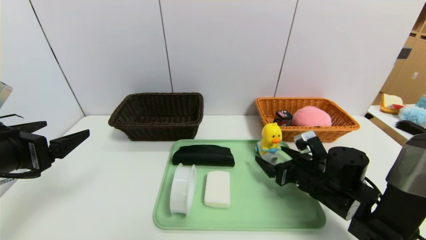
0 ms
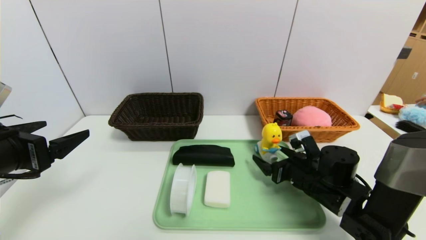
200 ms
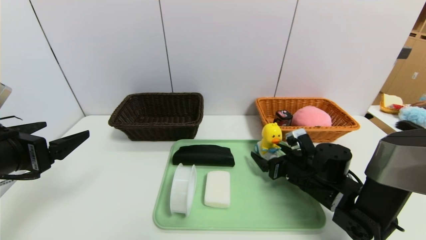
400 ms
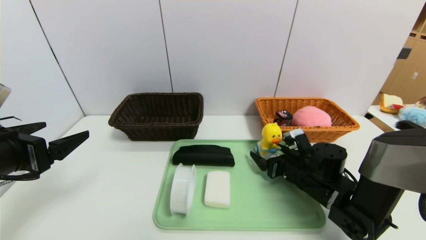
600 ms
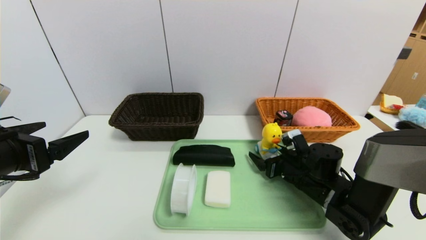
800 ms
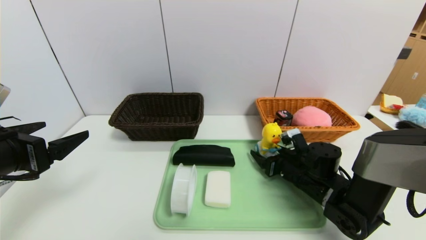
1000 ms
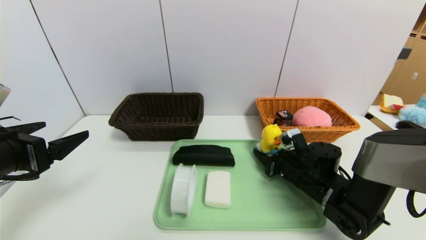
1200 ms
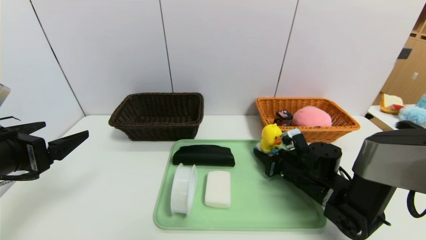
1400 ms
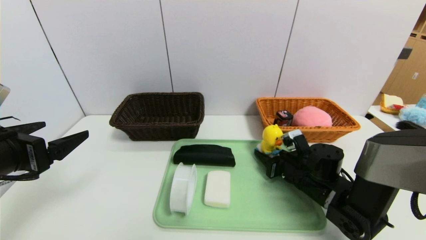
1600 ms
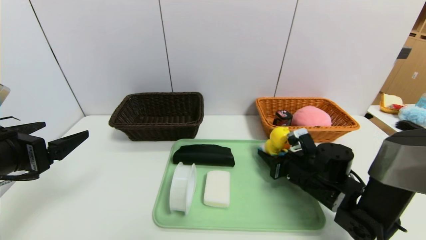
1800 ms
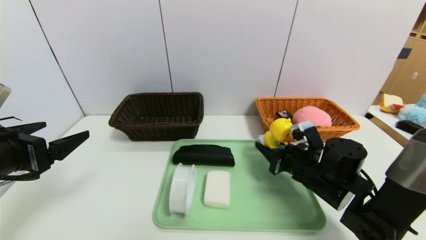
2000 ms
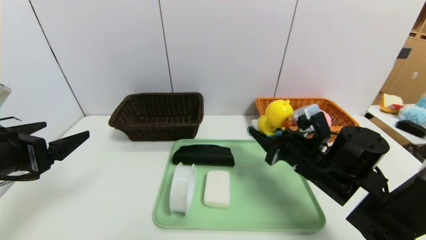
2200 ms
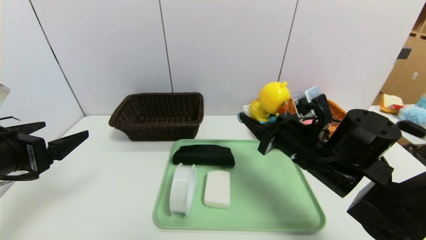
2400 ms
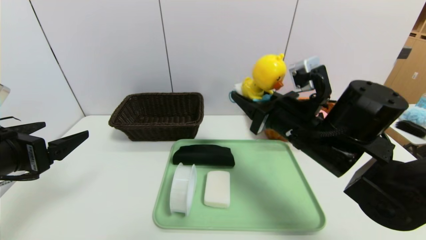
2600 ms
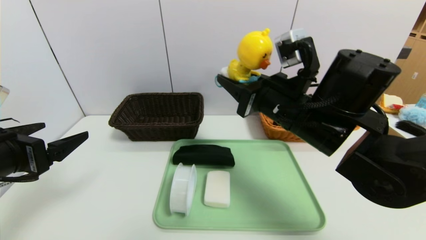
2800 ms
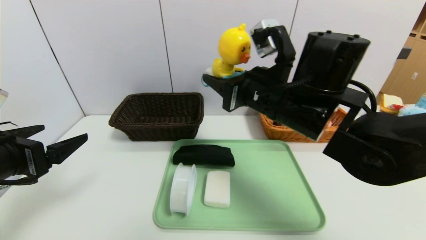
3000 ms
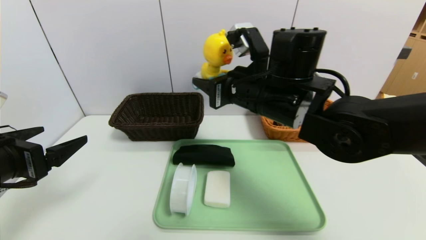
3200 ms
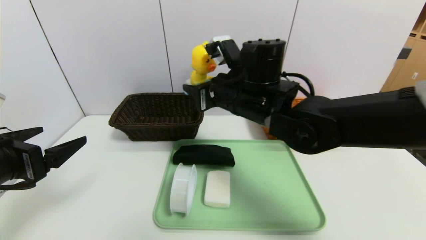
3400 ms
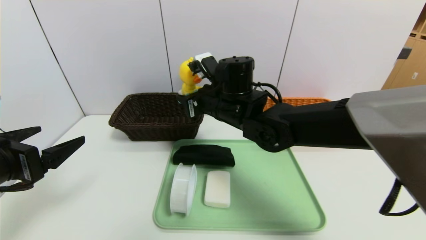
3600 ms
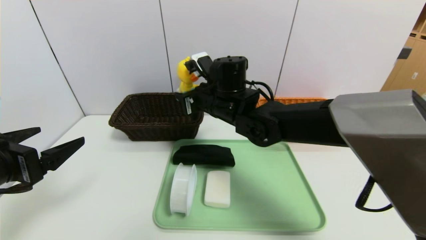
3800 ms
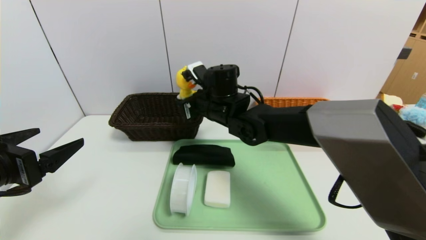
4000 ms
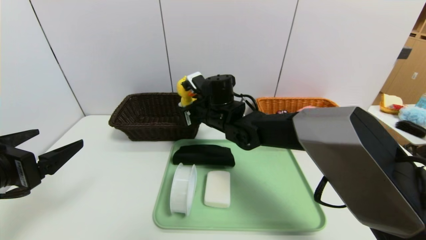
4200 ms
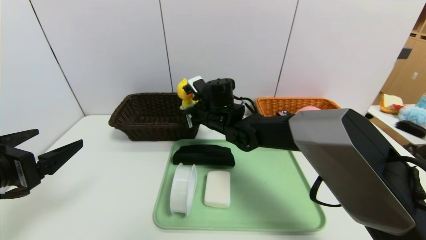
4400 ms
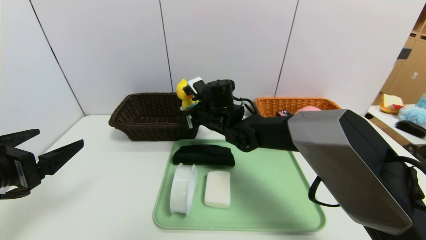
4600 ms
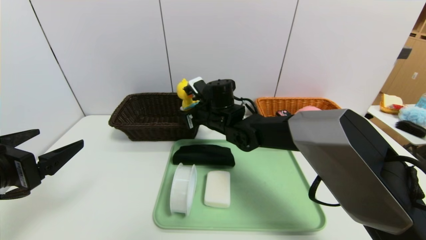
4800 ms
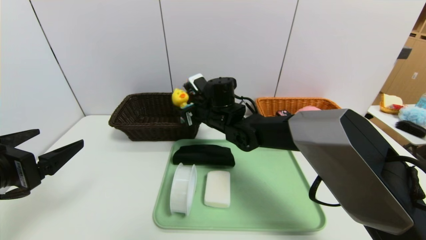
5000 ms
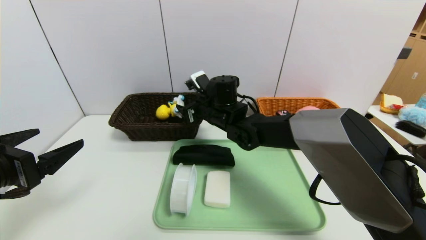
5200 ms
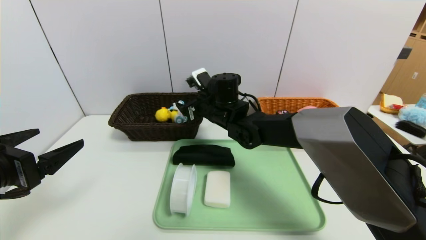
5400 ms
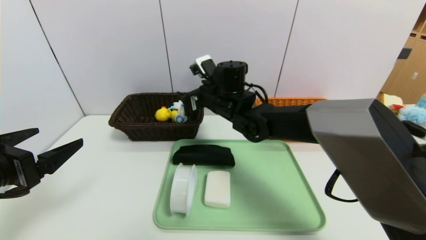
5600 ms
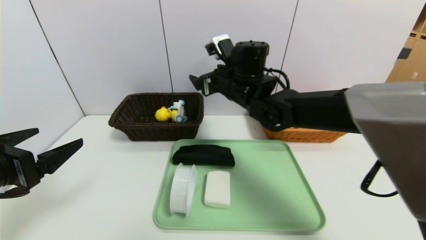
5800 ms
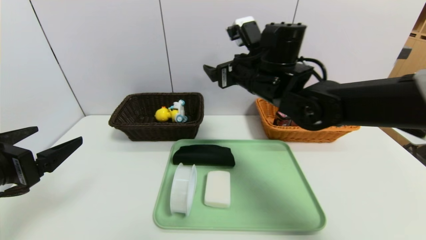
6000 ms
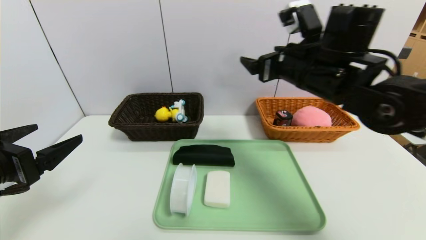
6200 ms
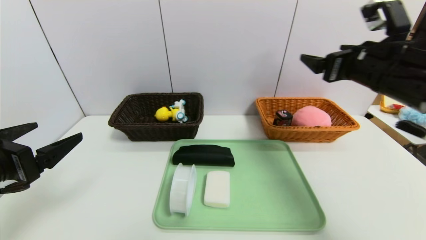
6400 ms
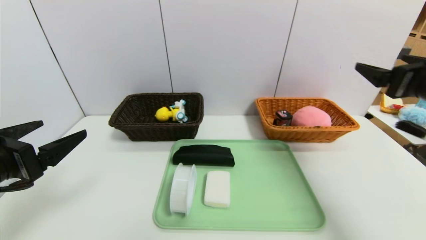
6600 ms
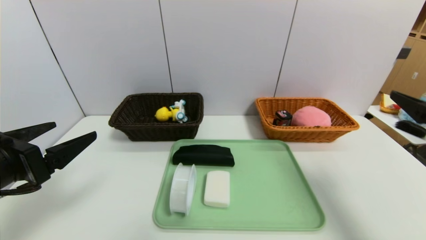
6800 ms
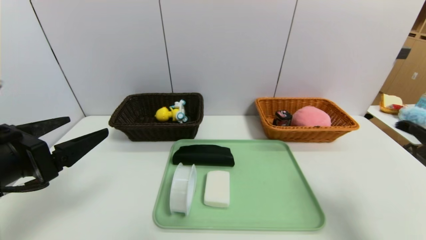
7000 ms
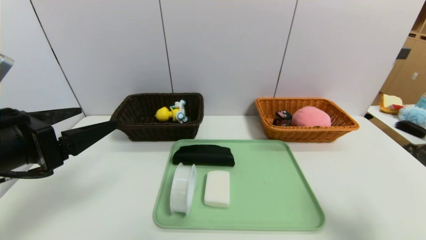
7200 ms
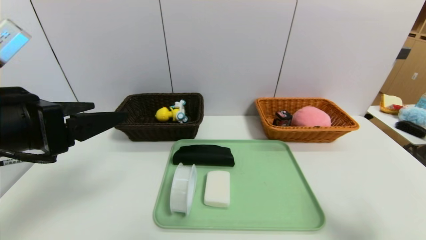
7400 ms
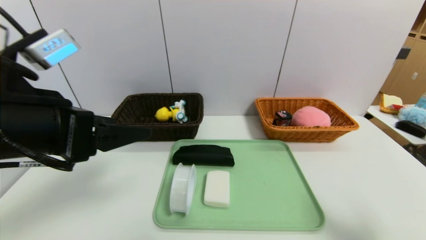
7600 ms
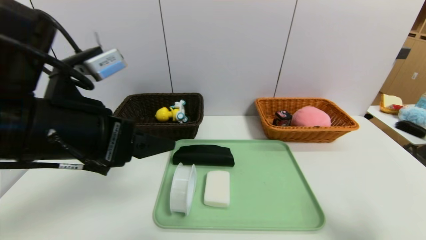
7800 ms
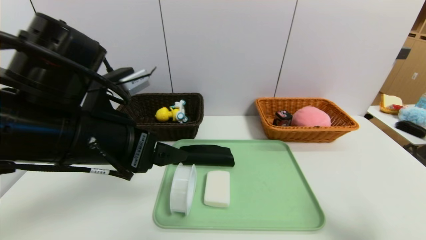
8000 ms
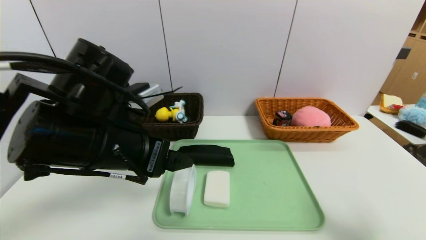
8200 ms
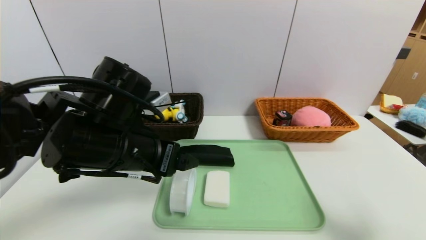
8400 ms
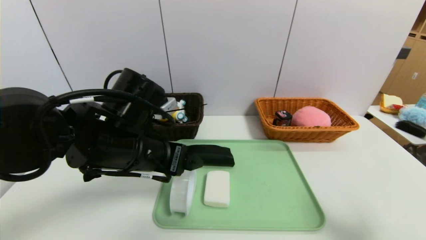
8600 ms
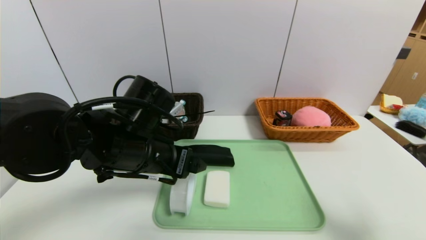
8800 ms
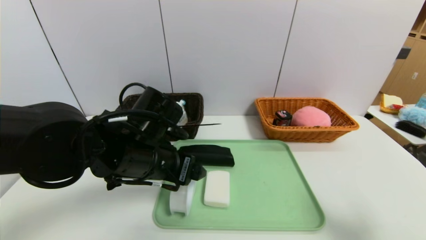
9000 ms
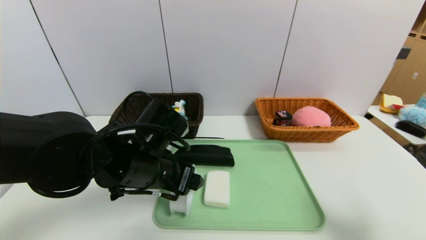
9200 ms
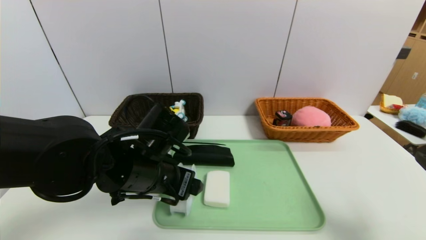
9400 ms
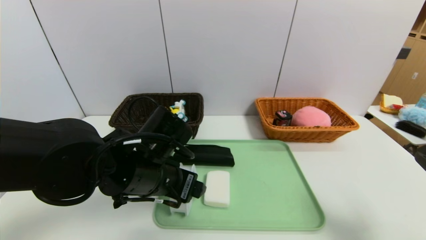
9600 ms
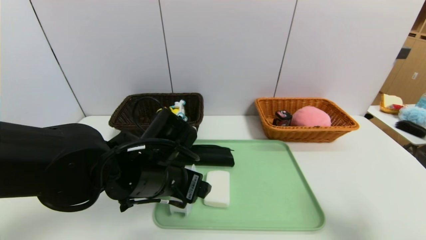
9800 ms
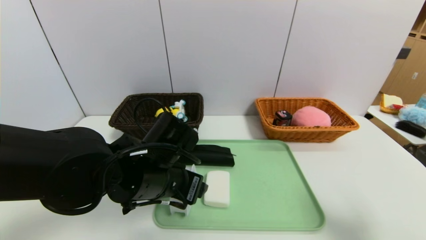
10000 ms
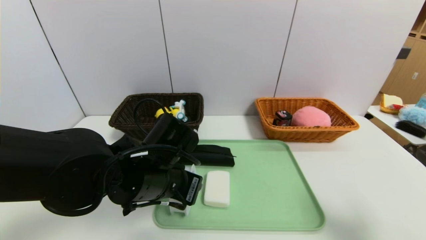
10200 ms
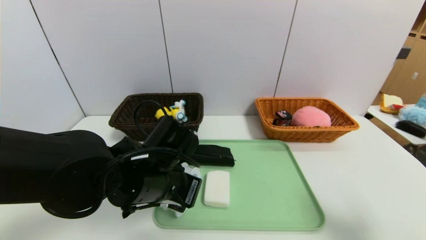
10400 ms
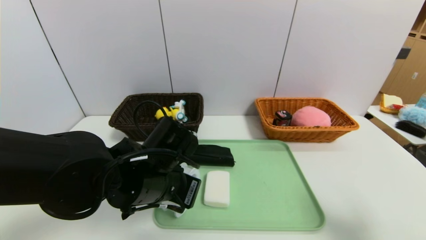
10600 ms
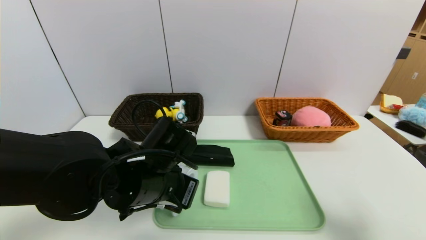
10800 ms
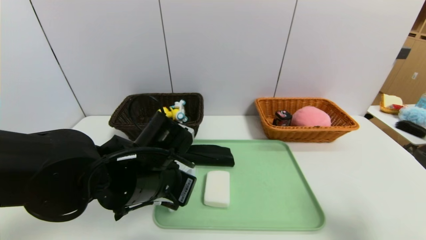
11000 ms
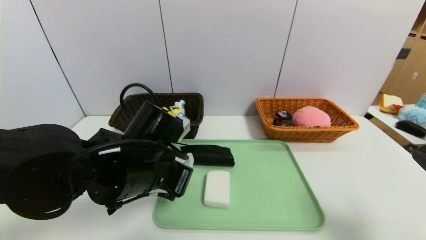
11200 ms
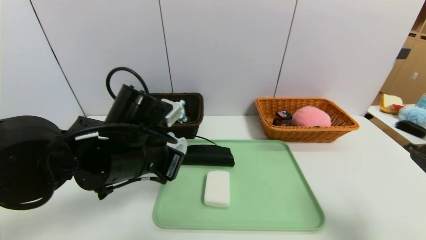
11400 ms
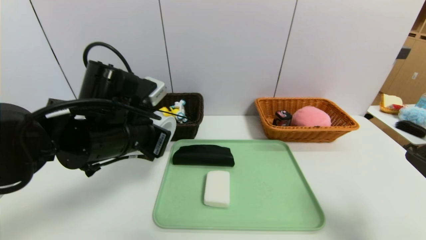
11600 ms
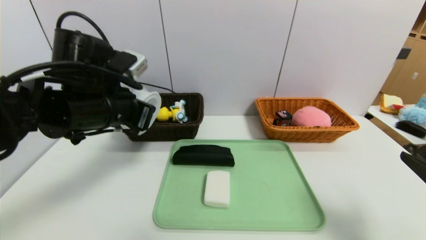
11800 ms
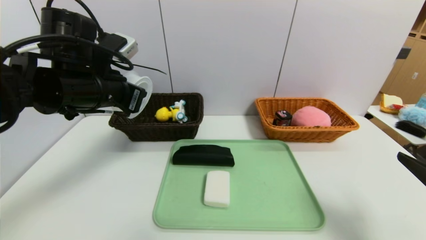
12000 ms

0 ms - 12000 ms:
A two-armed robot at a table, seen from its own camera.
Task of the whole recording: place the food in the right basket with the right gripper, and place the non food items in the left basket with the left gripper.
0 ms - 1600 ms: The right gripper closes up.
1600 ms - 3000 ms: The right gripper goes about 25 cm upward and to the left.
3000 ms - 4400 ms: The right gripper heads forward, downward and to the left, covering some 20 cm.
4400 ms - 6000 ms: The right gripper shifts about 15 cm upward, to the right and backward, and opens up.
6000 ms - 7600 ms: The left gripper is displaced to the right and upward by some 10 cm. The right gripper goes approximately 35 cm backward and to the right.
7600 ms - 9000 ms: The left gripper moves downward, to the right and forward, about 15 cm.
9000 ms - 10400 ms: The left gripper closes.
10400 ms - 12000 ms: The left gripper moves upward, to the left and forward, about 20 cm.

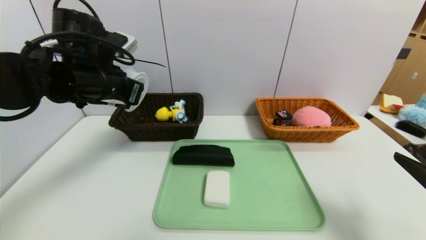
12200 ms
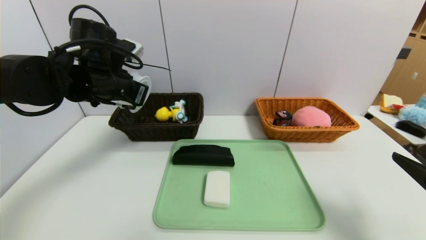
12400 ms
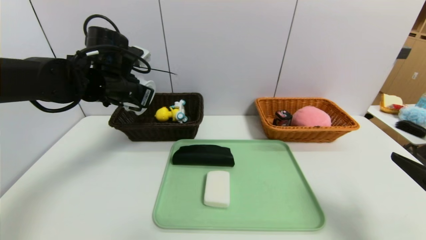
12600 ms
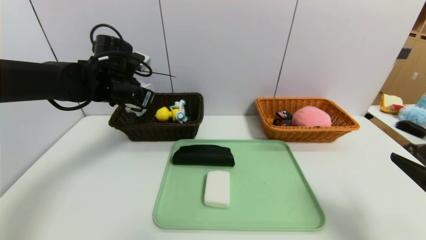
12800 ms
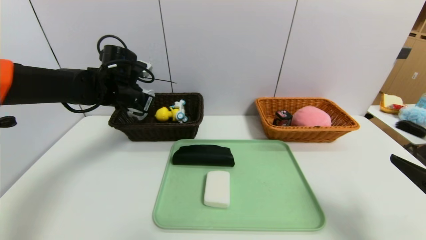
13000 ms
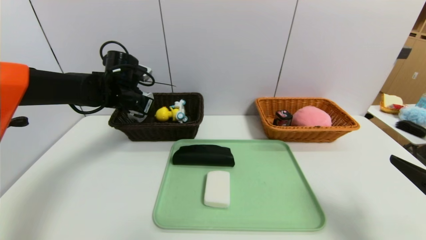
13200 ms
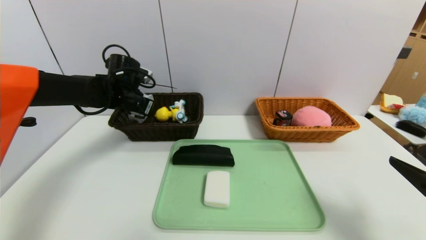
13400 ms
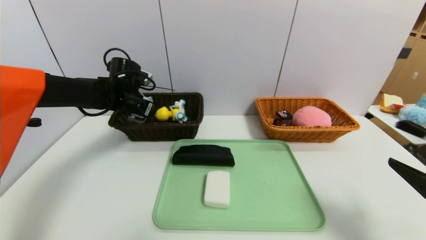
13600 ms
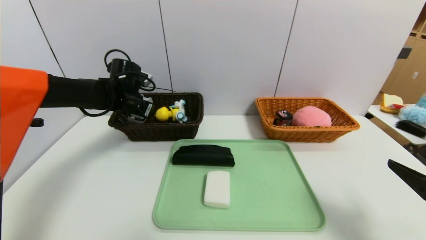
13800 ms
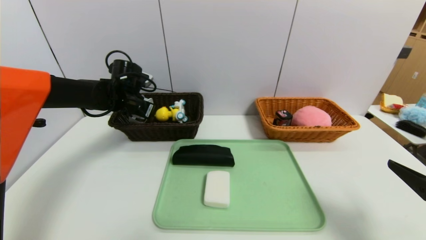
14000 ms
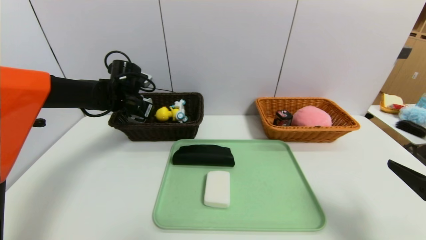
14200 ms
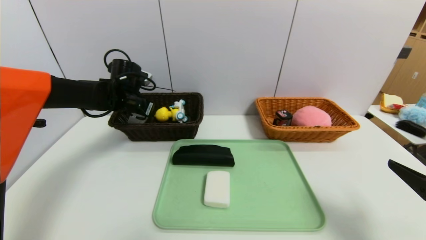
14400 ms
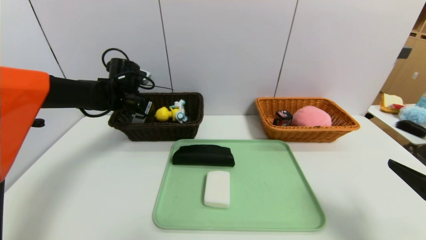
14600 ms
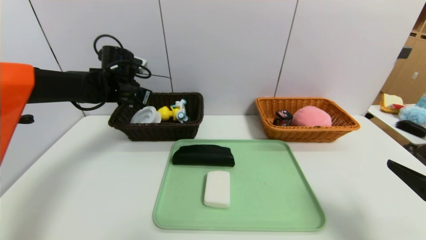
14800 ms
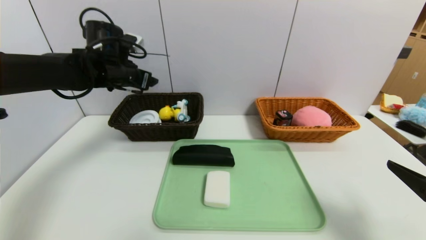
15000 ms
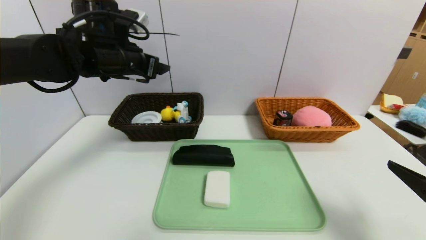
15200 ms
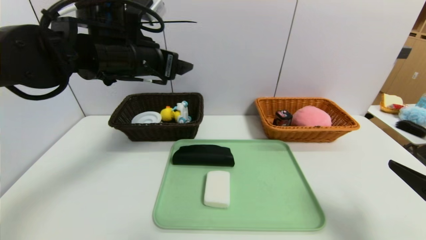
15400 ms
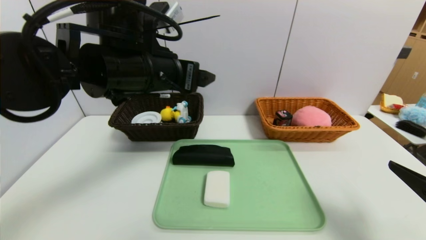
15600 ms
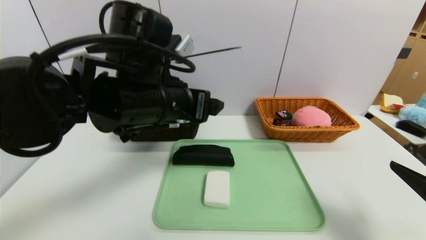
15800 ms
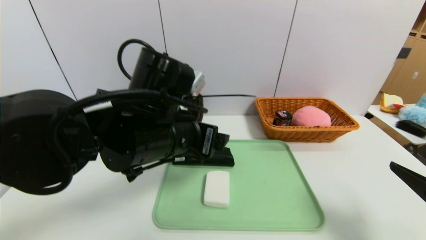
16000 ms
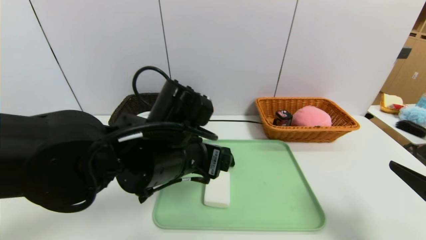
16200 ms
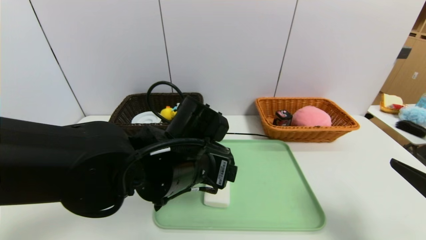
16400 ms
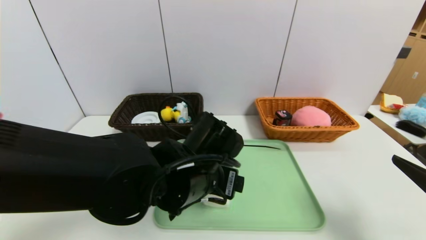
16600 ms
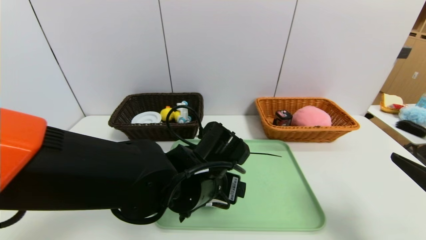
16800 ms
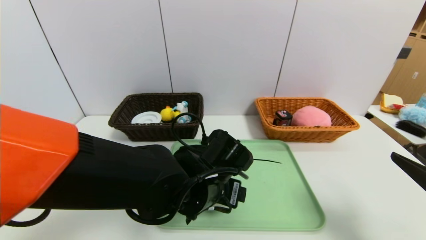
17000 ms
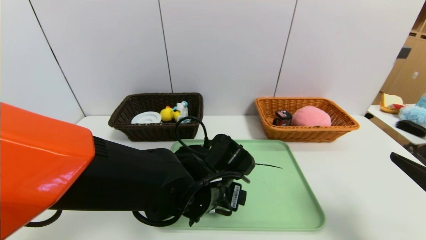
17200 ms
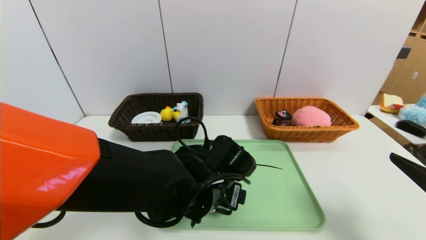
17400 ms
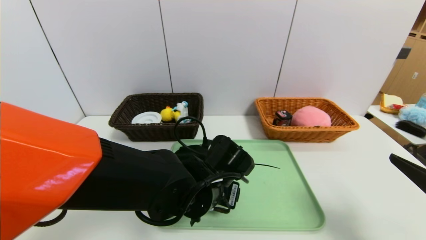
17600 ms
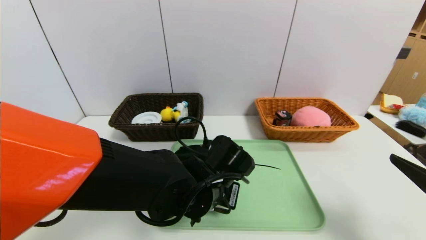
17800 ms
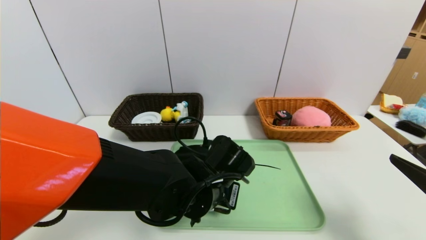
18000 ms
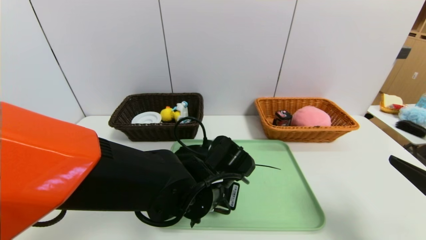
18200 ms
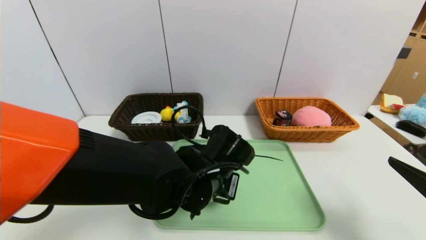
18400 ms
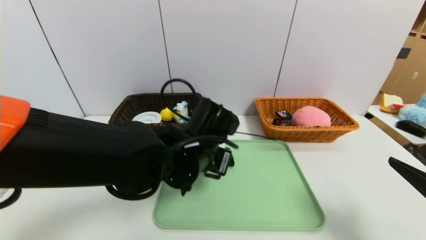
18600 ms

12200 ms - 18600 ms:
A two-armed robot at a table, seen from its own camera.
Task of the whole recording: place the food in the right basket with the right gripper, and place the non food items in the left basket with the left gripper.
Step, 12200 ms - 15000 ms: Grasp the tape and put it in the left basket.
12200 ms - 13800 ms: The left gripper goes some 15 cm forward and downward.
13800 ms - 15400 ms: The left gripper moves backward, upward and to the right, about 20 cm, and opens its fingers.
15400 ms - 17000 ms: The left gripper travels downward, to the right and backward by some 25 cm.
17000 ms - 18600 ms: The left gripper moves upward, about 5 cm, and closes.
